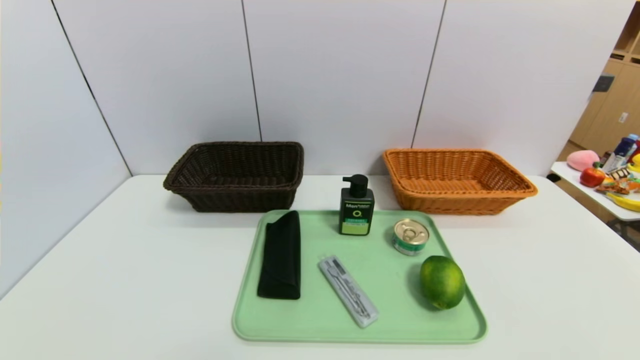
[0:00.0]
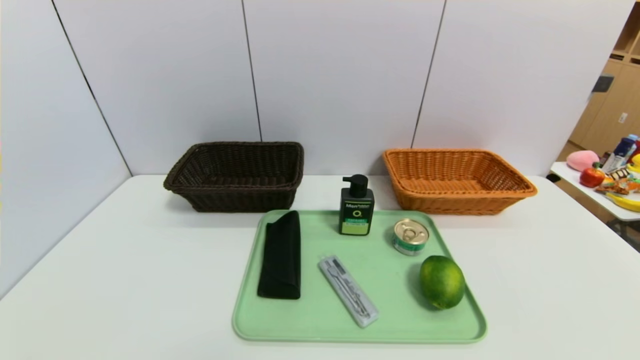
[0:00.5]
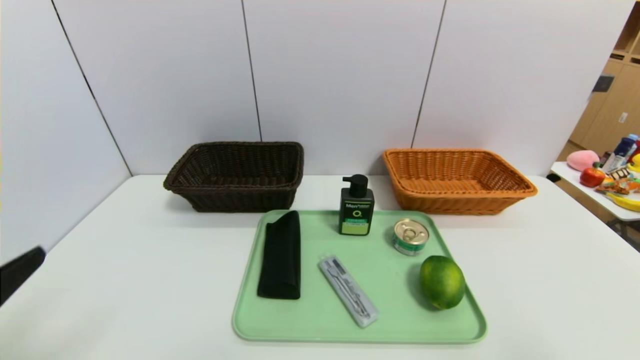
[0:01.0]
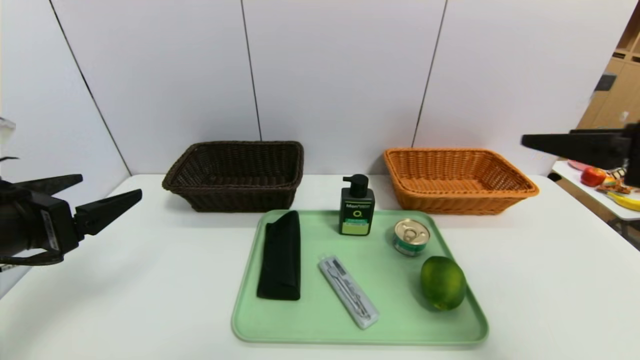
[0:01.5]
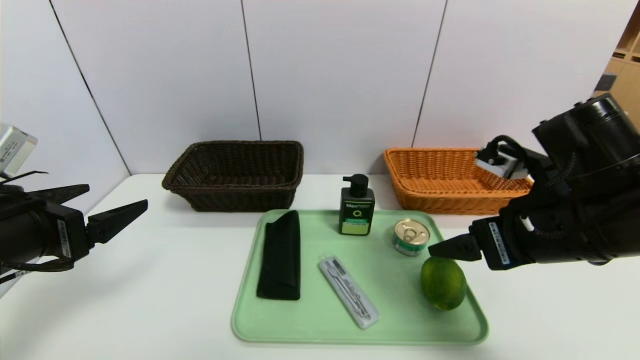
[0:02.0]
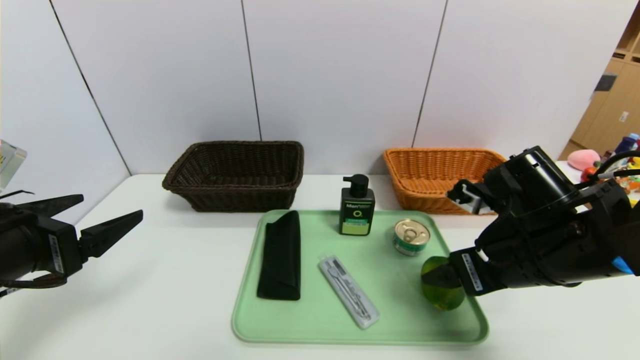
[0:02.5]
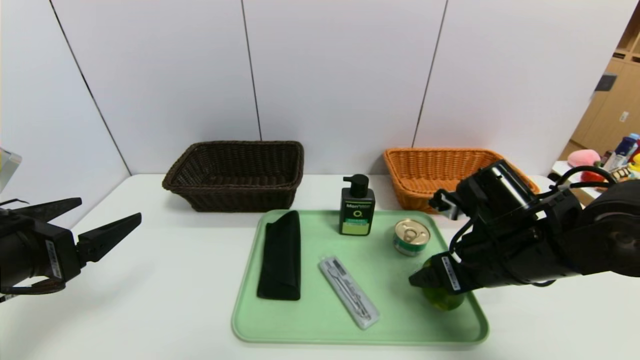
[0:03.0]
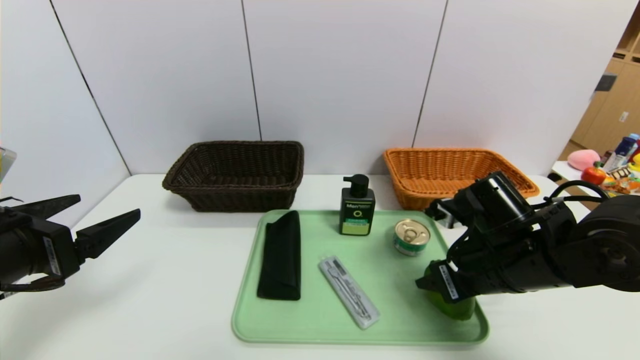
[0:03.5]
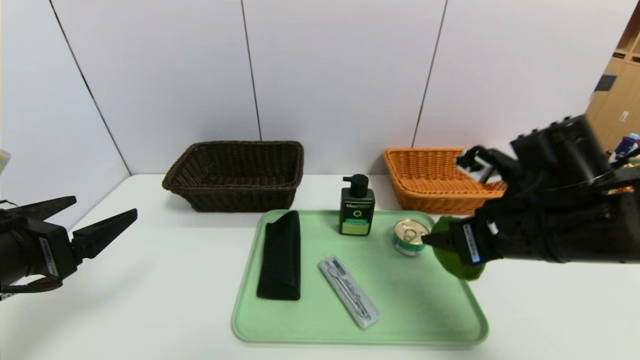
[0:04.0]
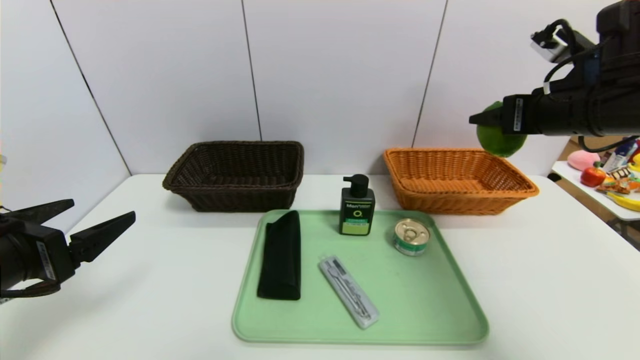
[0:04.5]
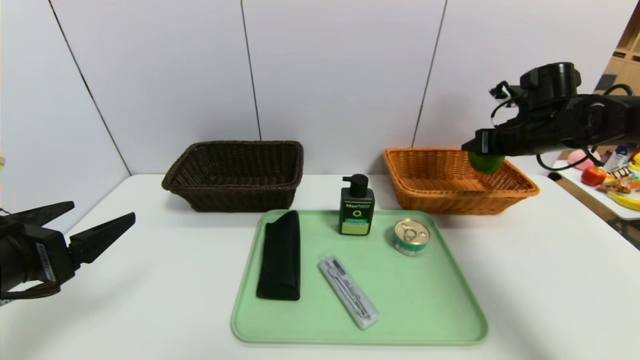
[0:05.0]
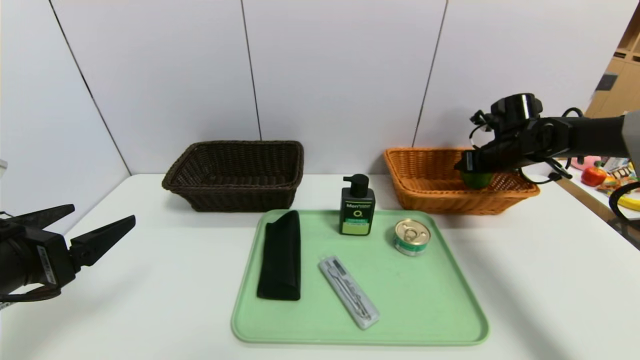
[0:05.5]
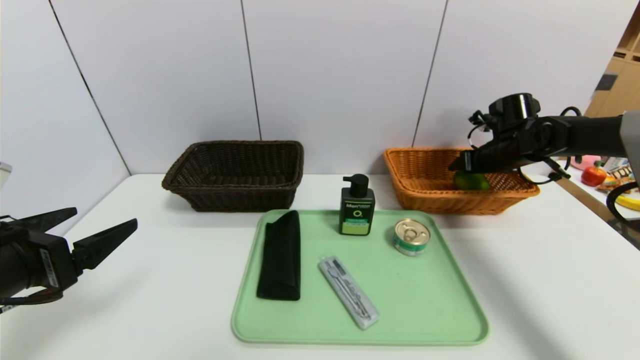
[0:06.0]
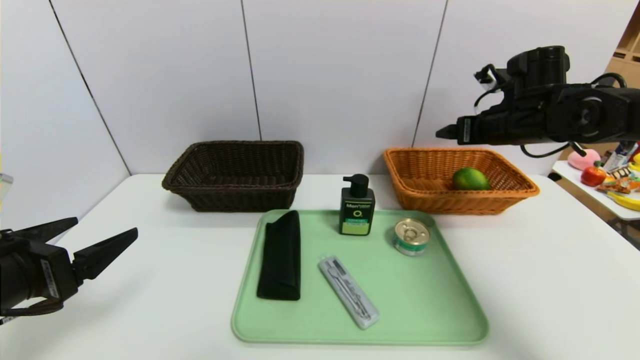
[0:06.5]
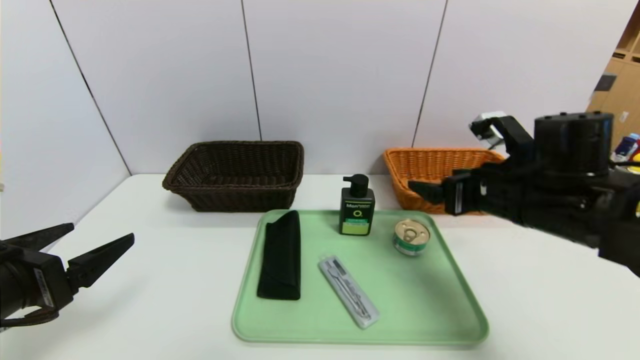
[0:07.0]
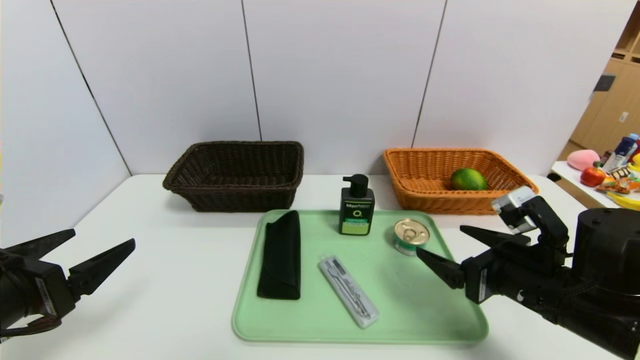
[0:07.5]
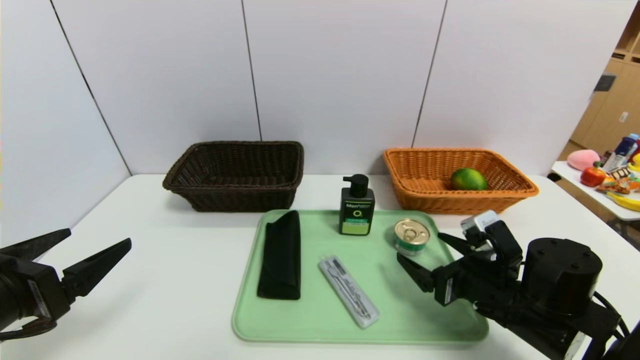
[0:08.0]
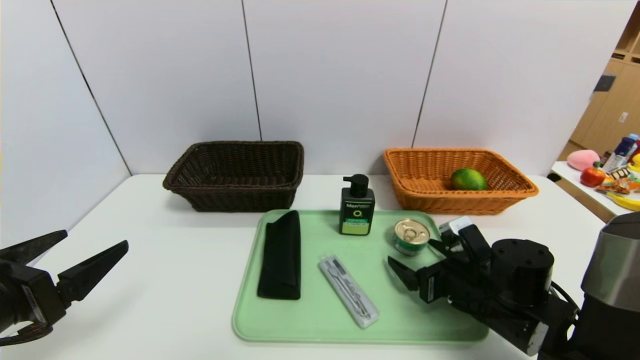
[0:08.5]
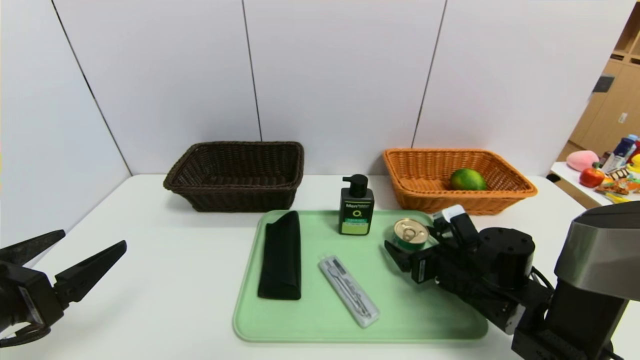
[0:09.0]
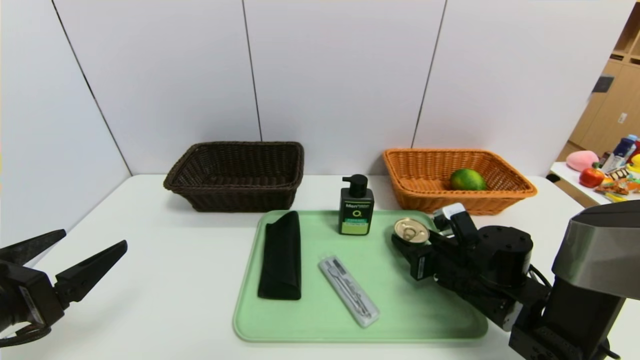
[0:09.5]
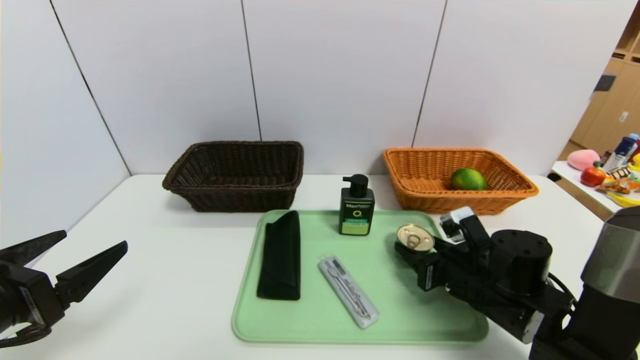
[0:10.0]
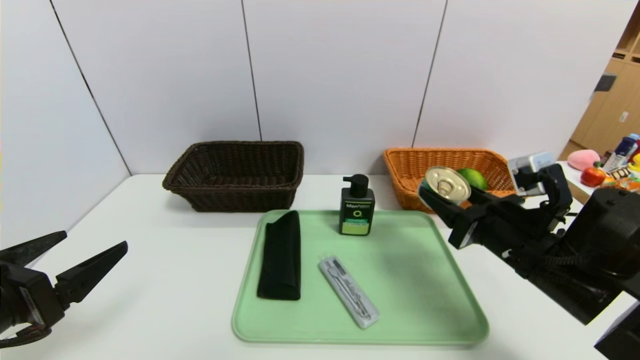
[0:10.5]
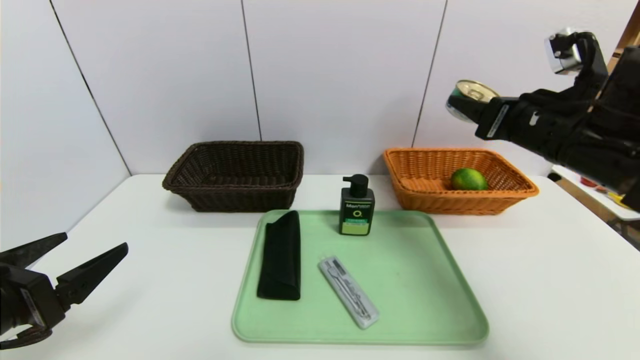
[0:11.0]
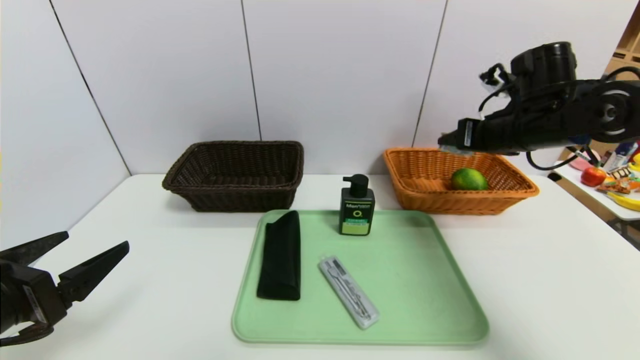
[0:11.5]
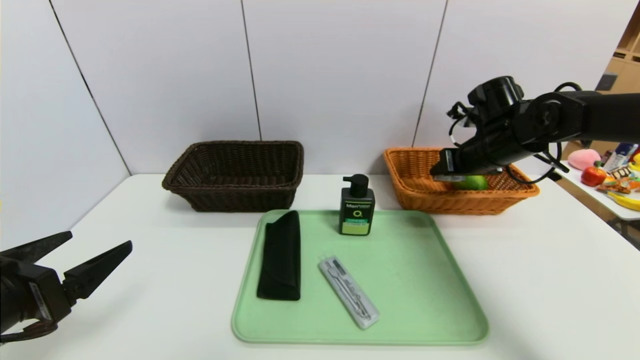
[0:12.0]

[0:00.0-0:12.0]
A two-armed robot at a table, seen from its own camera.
Task of the whole recording: place the food in the right basket with the right gripper, and place the non food items in the left basket with the left gripper.
Step, 0:00.0 to 0:05.5: Grasp the green lemon and put it in the right basket.
0:00.0 to 0:02.0: The left gripper shifts some 25 cm forward and upward; the right gripper goes some 30 cm forward, upward and to the left.
0:02.0 to 0:04.0: The right gripper goes downward and returns, some 10 cm each way, and closes up.
0:04.0 to 0:06.0: The right gripper moves forward and to the right, roughly 25 cm, and opens up.
0:06.0 to 0:08.0: The right gripper is displaced backward and to the left by approximately 25 cm.
0:08.0 to 0:10.0: The right gripper closes.
0:10.0 to 0:12.0: The right gripper travels forward and upward by some 20 cm.

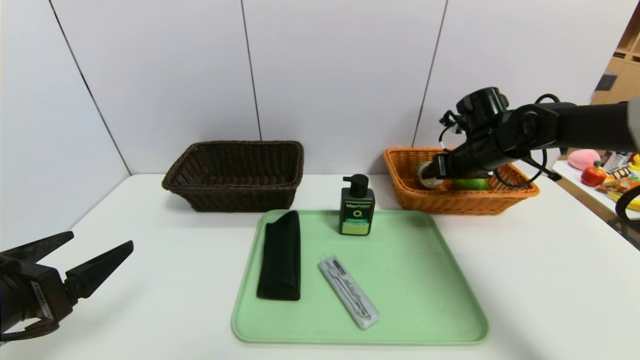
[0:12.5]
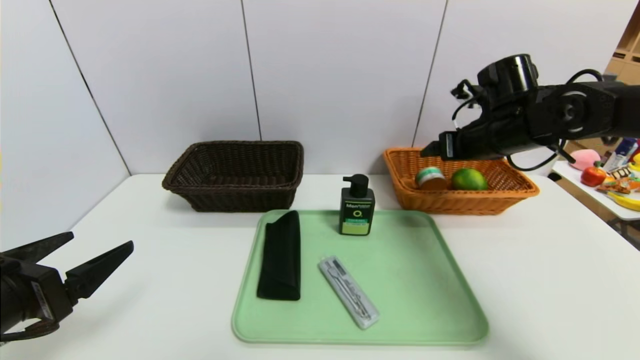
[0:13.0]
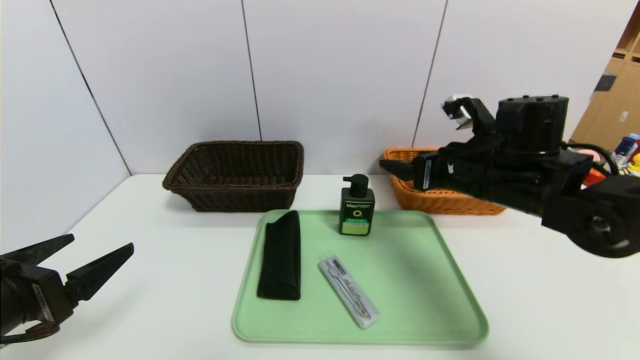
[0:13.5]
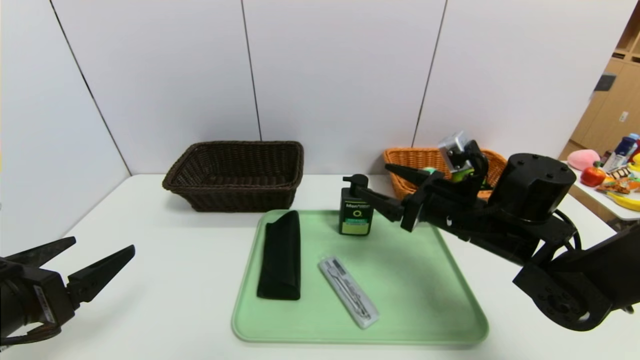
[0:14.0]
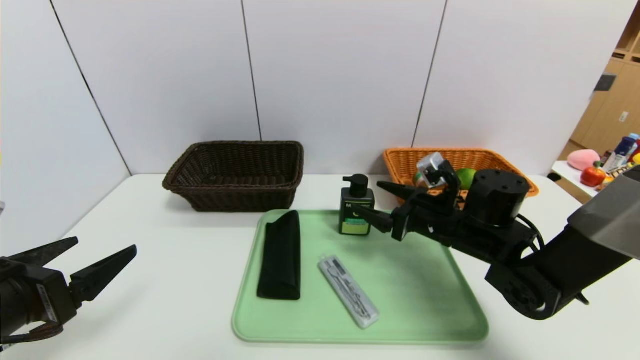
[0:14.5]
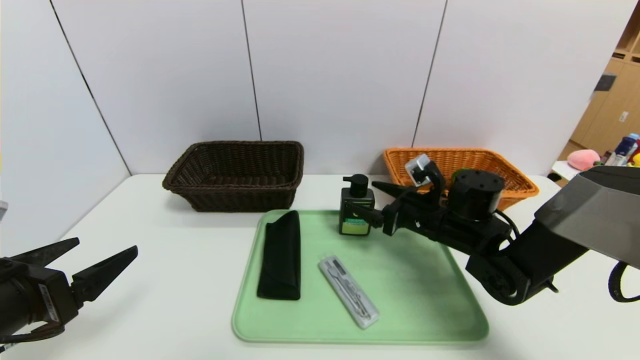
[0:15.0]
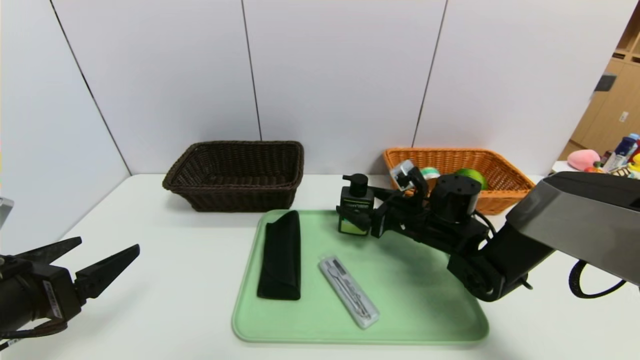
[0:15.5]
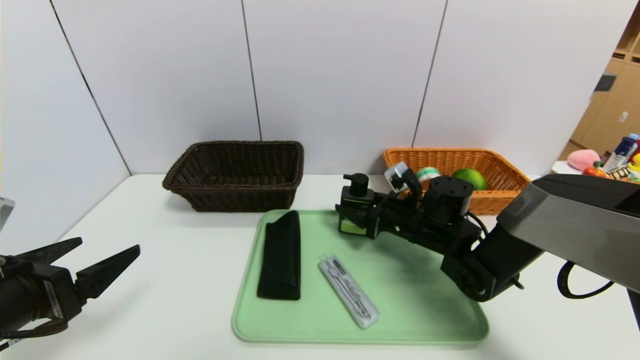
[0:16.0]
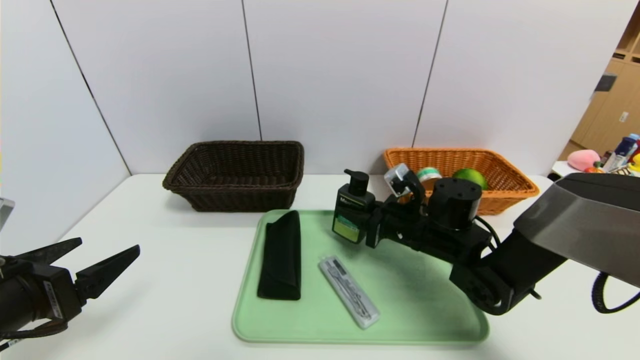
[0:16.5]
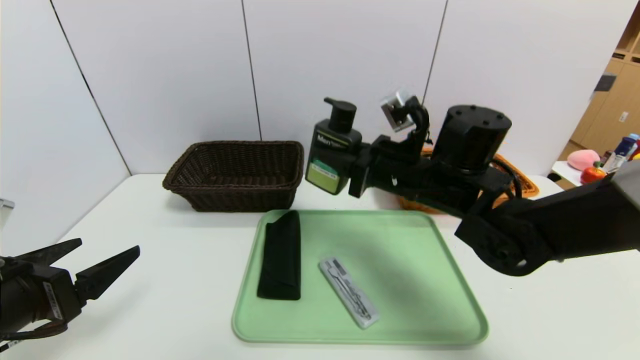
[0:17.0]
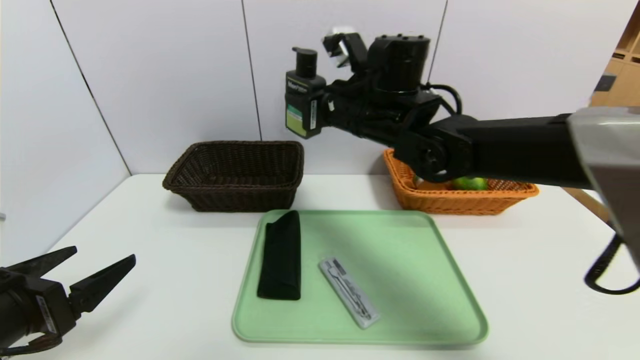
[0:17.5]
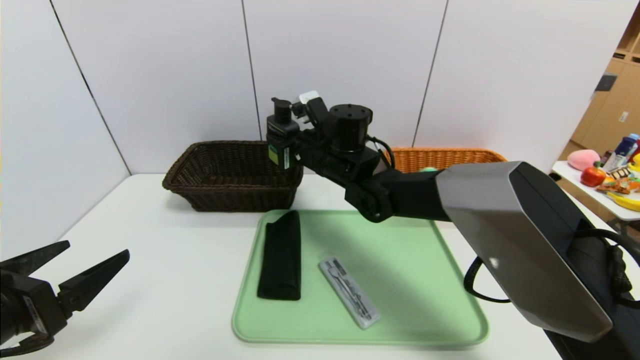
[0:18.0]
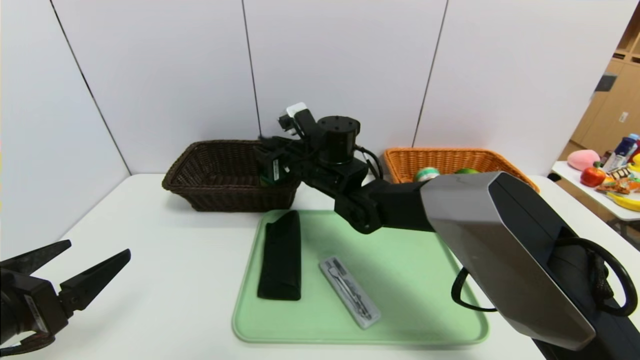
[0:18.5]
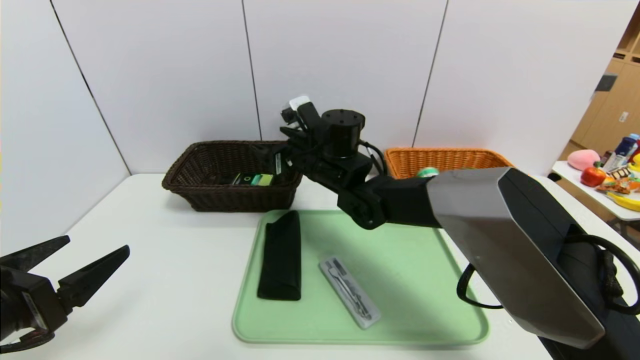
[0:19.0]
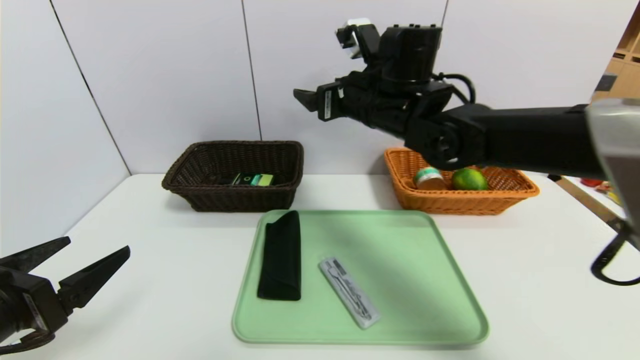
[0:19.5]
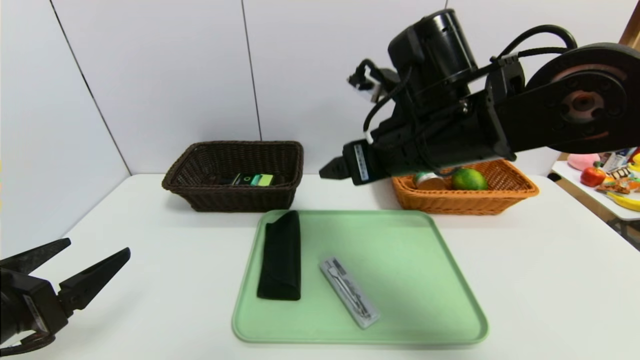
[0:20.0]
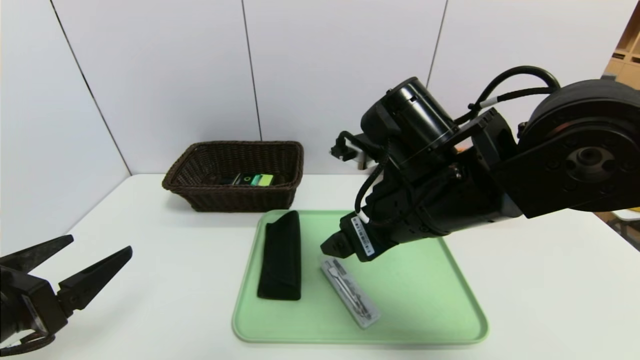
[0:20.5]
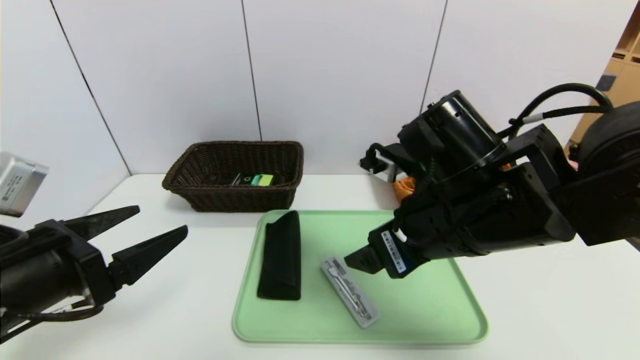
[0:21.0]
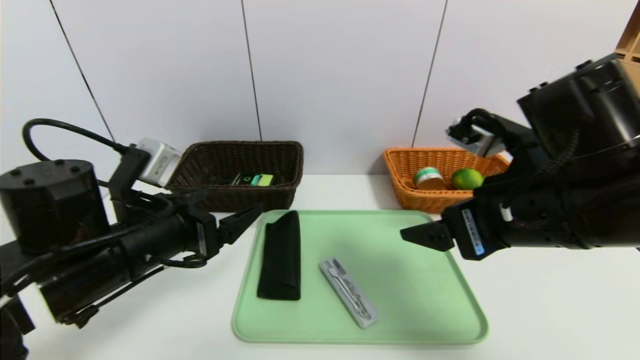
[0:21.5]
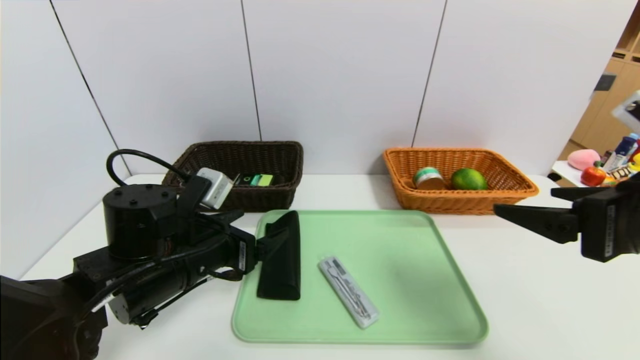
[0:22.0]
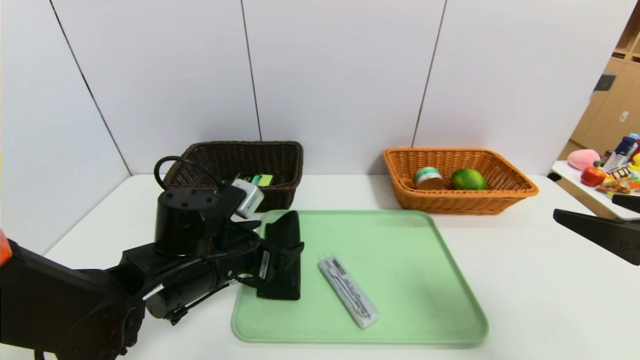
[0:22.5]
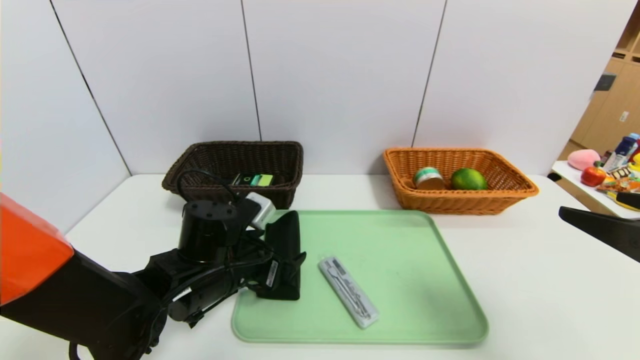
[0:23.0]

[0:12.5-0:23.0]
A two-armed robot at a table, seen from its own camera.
Task of the whole recording: place the food in the right basket with the right gripper, and place the non food items in the left basket with the left gripper.
0:12.5 to 0:14.5: The right gripper travels backward, to the left and downward by about 15 cm.
0:14.5 to 0:16.5: The right gripper closes up.
0:16.5 to 0:19.0: The right gripper heads to the left, upward and forward, covering roughly 20 cm, and opens up.
0:19.0 to 0:21.0: The left gripper ends up approximately 5 cm from where it was. Meanwhile the right gripper is displaced backward and to the right by some 25 cm.
0:21.0 to 0:23.0: The right gripper is displaced to the right and backward by some 20 cm. Meanwhile the left gripper is displaced to the right, forward and downward by some 20 cm.
